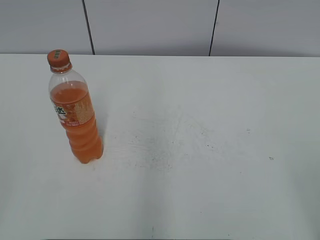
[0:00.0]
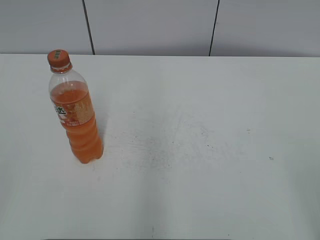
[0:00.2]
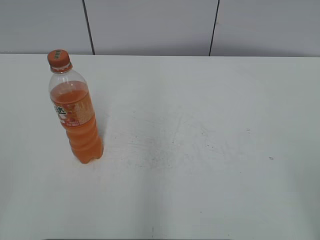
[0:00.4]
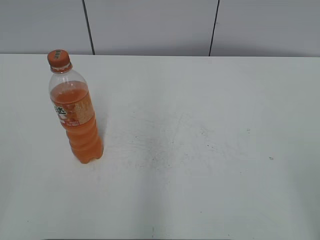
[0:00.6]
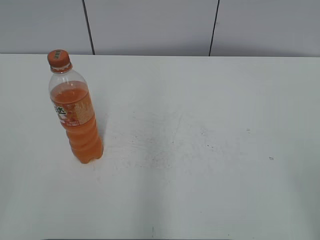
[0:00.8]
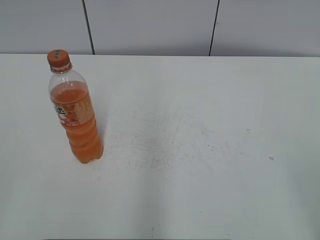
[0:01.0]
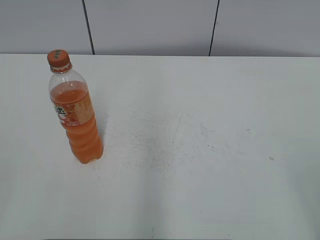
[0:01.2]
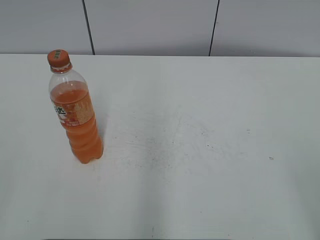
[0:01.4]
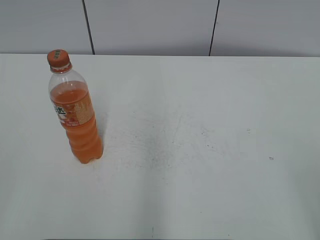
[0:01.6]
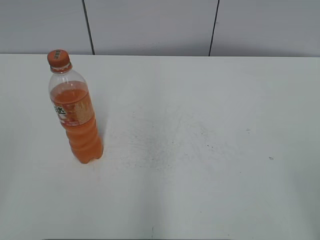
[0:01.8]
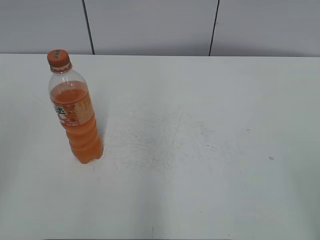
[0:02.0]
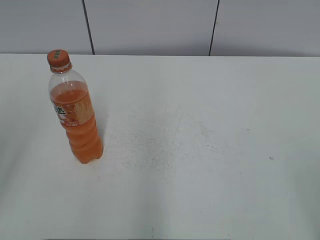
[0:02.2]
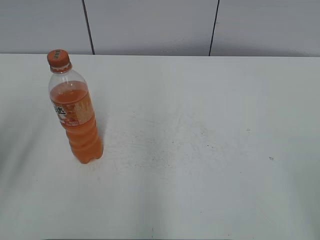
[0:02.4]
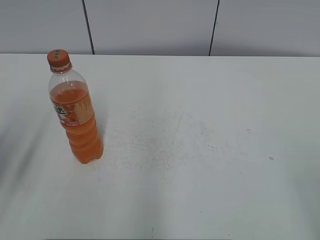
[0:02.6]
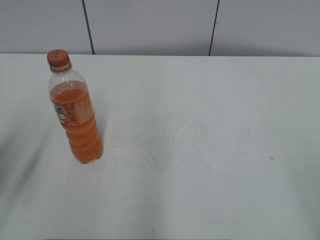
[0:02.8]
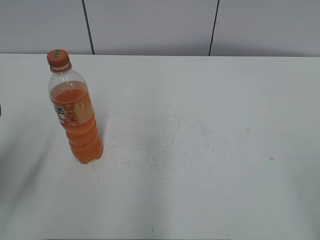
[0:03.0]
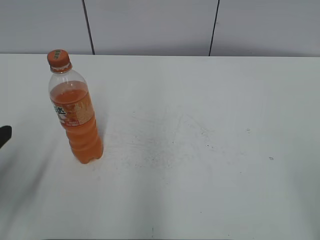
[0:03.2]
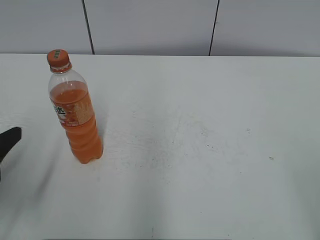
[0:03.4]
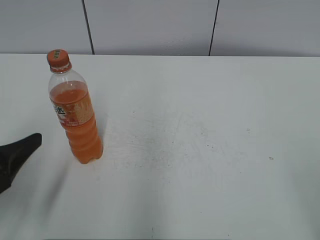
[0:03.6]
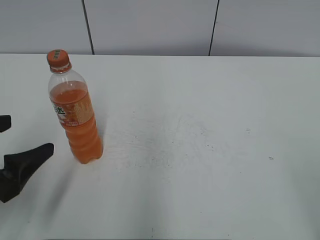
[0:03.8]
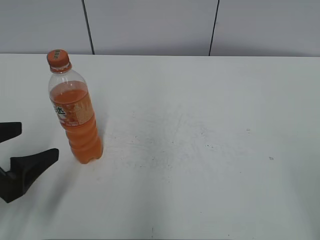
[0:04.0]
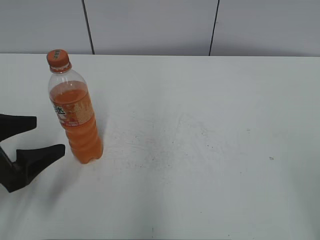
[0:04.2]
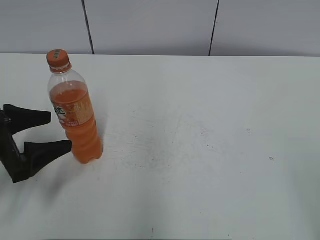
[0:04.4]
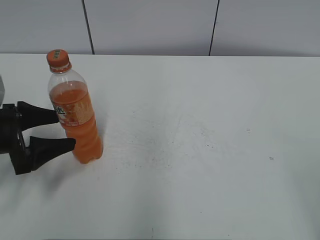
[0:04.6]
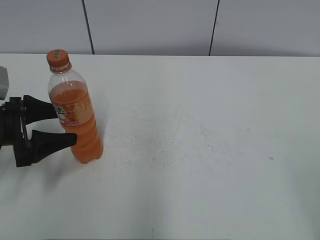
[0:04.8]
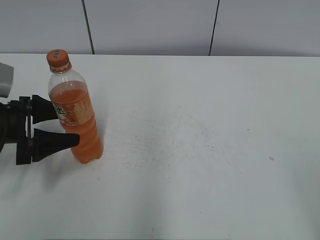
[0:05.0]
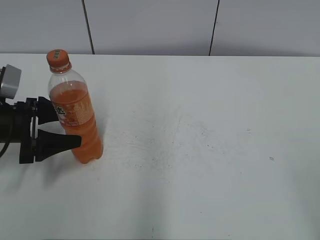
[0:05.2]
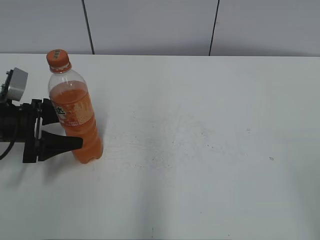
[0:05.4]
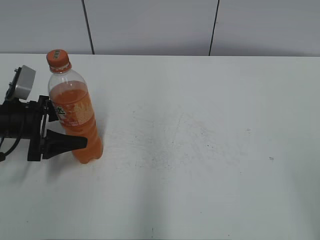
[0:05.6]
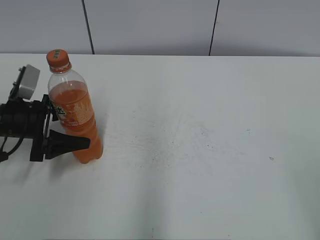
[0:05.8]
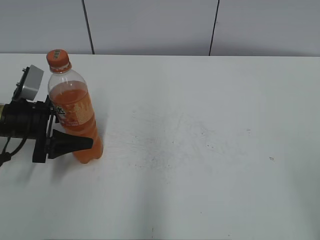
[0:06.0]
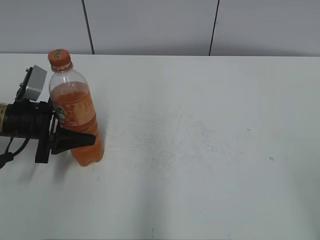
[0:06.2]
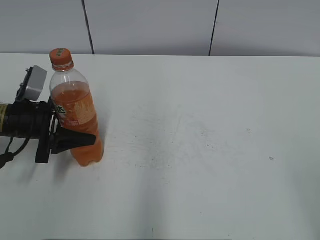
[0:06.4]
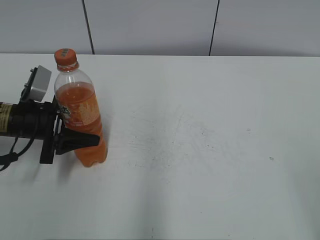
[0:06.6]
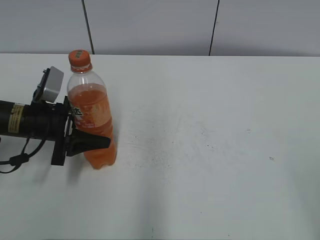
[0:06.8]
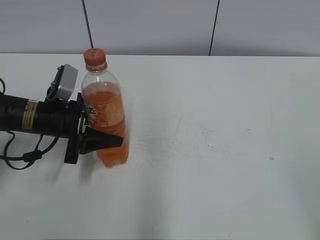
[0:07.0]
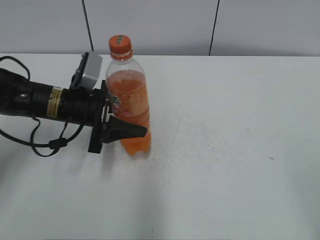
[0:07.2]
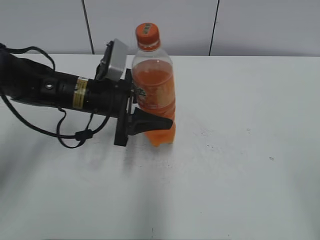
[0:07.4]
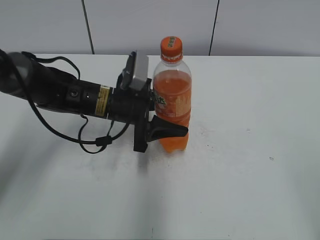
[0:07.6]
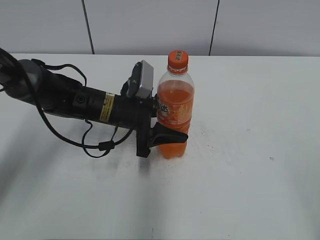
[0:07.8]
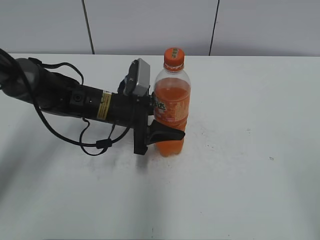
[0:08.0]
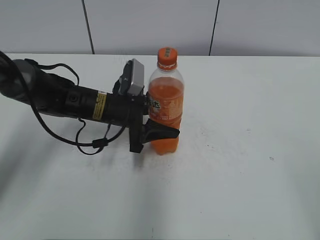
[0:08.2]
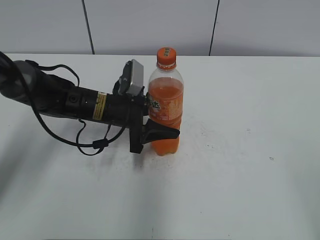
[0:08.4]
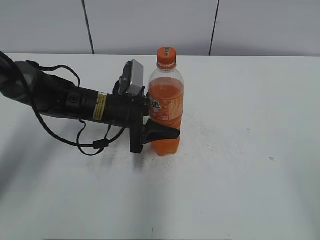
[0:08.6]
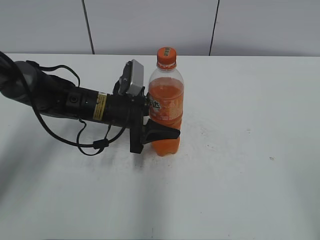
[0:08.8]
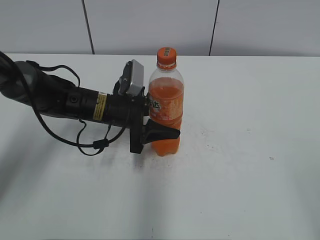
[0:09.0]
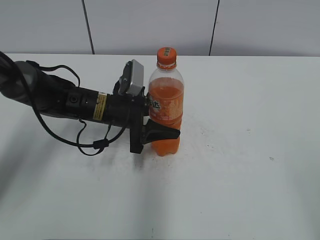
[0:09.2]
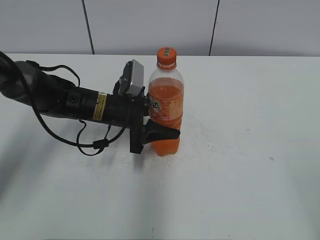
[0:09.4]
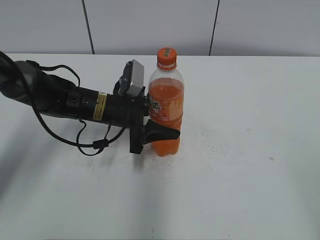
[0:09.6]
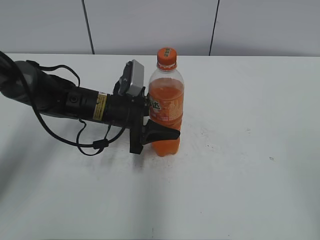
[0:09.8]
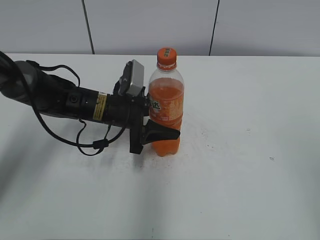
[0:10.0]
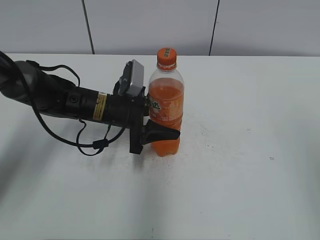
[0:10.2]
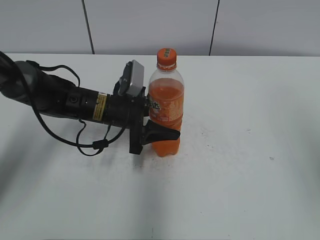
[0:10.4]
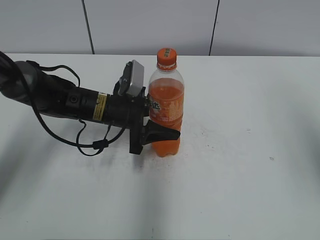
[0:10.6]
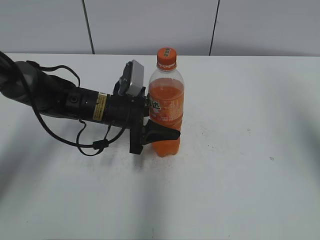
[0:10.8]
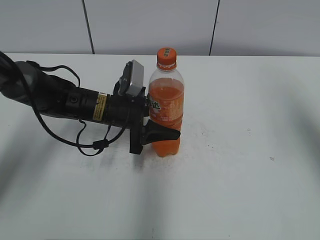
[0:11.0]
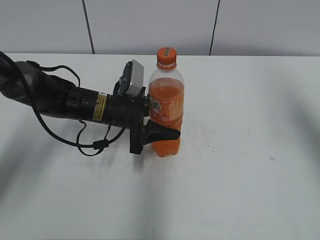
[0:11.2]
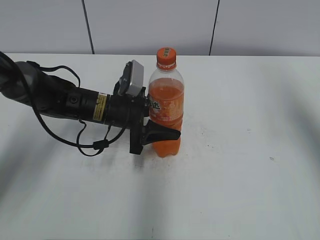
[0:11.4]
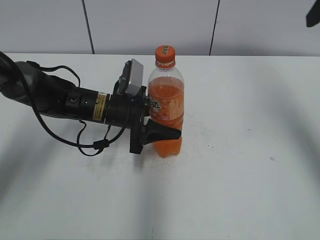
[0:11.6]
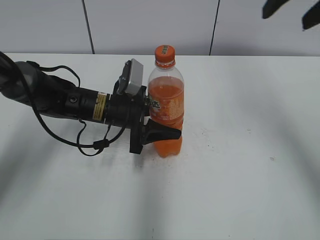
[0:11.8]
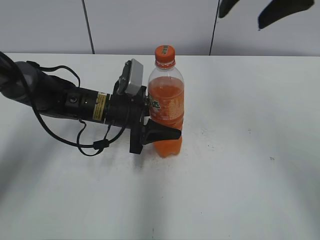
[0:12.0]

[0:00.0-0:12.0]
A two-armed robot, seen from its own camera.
Step, 0:00.0 to 0:06.0: Grab the Mirinda with the left hand.
Step, 0:06.2 to 0:08.2: Move the Mirinda from left to right.
0:01.6 to 0:03.0: The left gripper travels forward and downward by approximately 15 cm.
0:03.0 to 0:04.4: The left gripper heads downward and forward, covering roughly 10 cm, and opens up.
0:04.4 to 0:06.0: The left gripper goes roughly 10 cm forward.
0:06.0 to 0:07.6: The left gripper shifts roughly 15 cm to the right, and closes its fingers.
0:07.6 to 0:09.0: The grippers stay close to where they were, moving slightly.
0:10.4 to 0:12.0: The right gripper heads forward and to the left, covering some 25 cm.

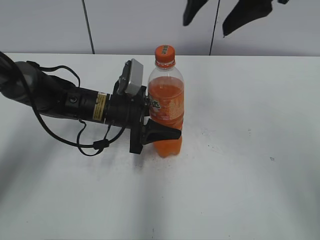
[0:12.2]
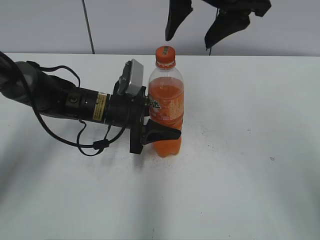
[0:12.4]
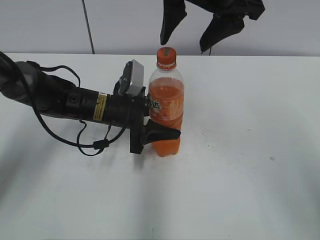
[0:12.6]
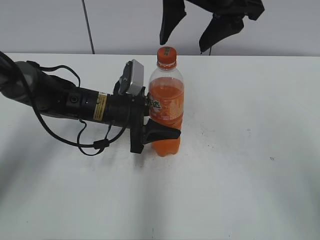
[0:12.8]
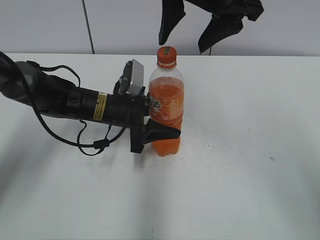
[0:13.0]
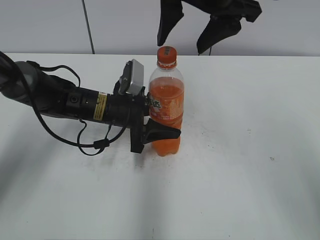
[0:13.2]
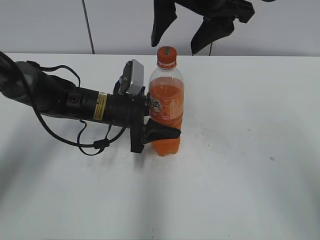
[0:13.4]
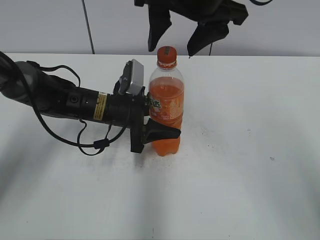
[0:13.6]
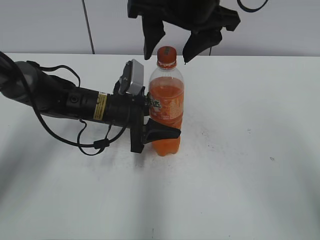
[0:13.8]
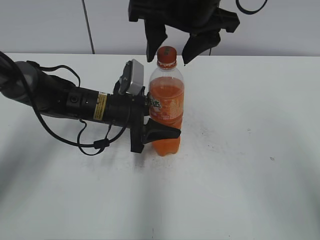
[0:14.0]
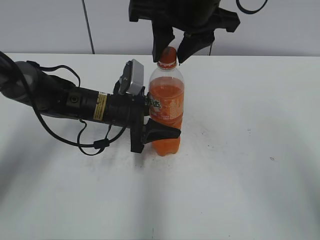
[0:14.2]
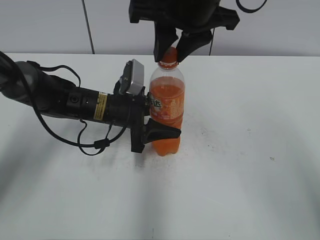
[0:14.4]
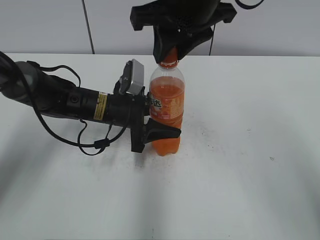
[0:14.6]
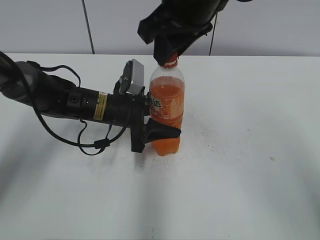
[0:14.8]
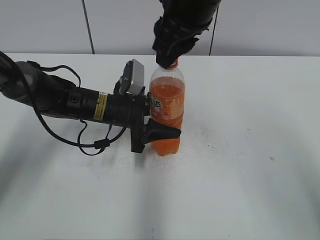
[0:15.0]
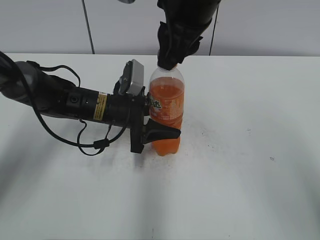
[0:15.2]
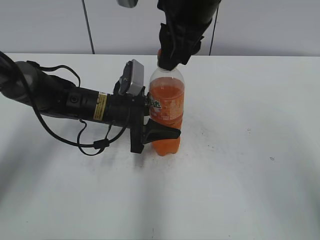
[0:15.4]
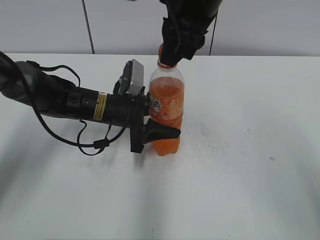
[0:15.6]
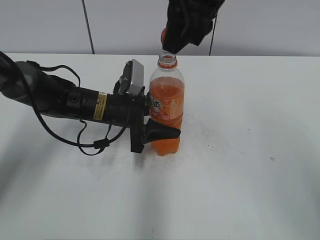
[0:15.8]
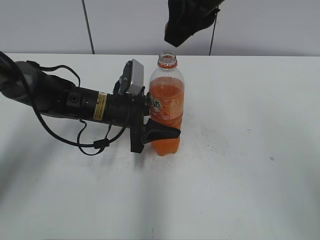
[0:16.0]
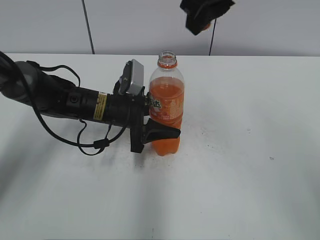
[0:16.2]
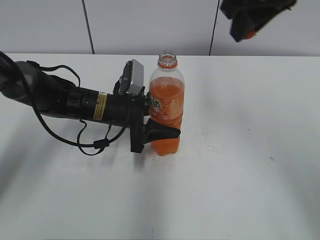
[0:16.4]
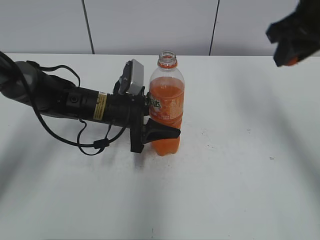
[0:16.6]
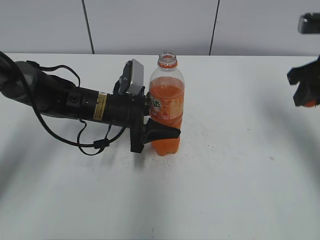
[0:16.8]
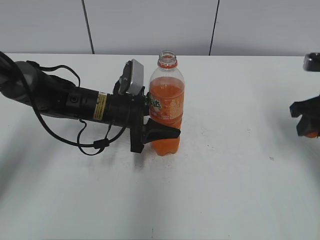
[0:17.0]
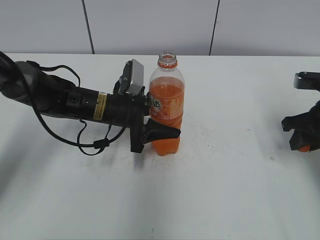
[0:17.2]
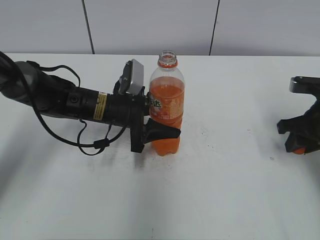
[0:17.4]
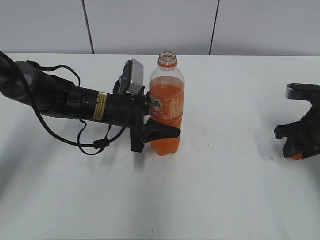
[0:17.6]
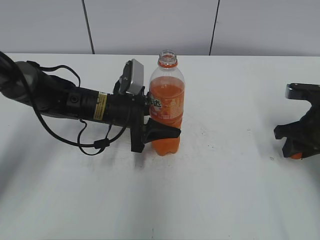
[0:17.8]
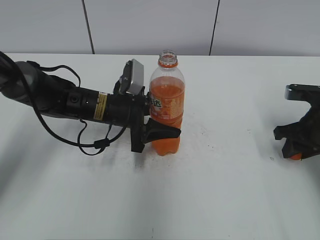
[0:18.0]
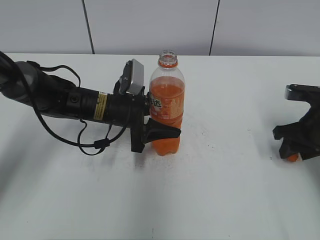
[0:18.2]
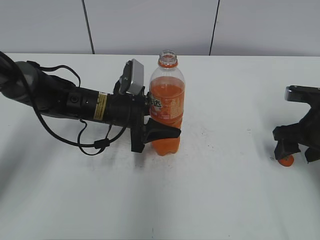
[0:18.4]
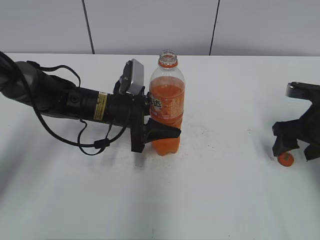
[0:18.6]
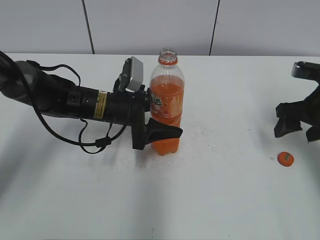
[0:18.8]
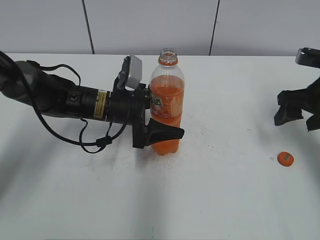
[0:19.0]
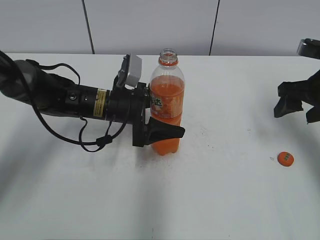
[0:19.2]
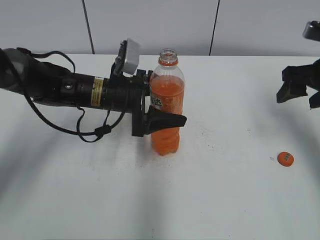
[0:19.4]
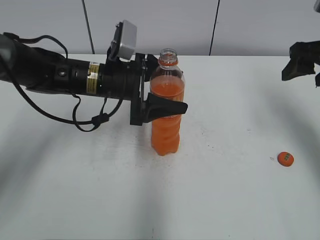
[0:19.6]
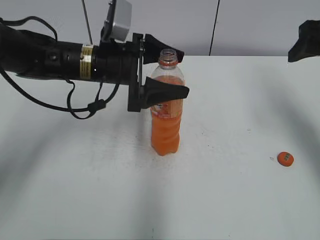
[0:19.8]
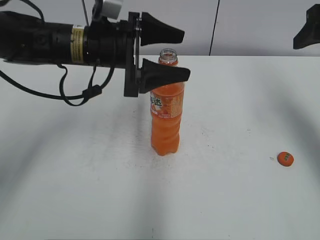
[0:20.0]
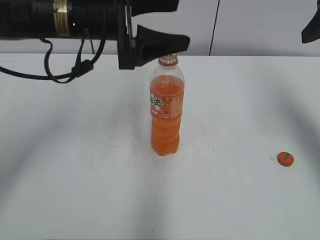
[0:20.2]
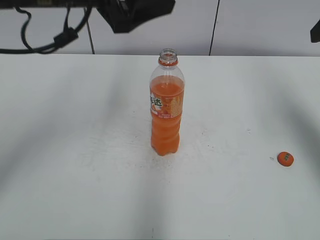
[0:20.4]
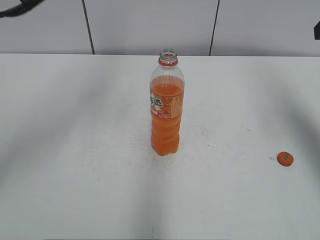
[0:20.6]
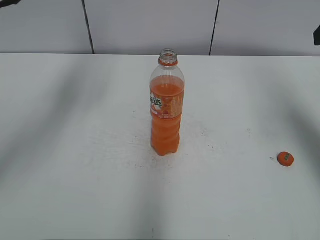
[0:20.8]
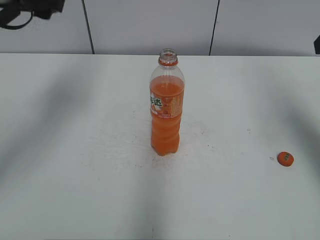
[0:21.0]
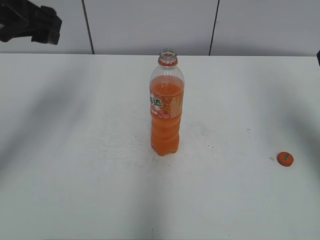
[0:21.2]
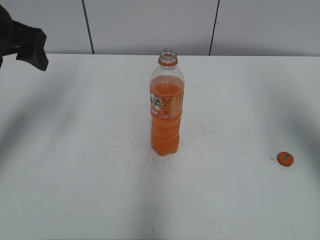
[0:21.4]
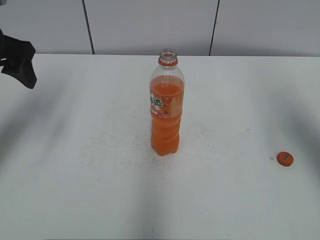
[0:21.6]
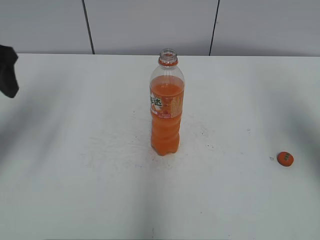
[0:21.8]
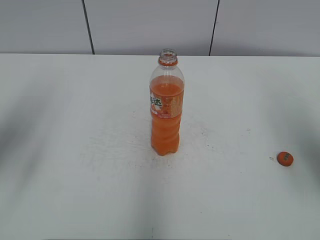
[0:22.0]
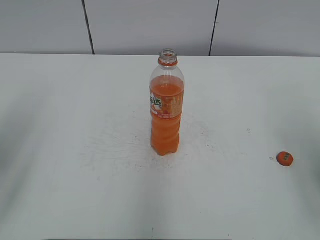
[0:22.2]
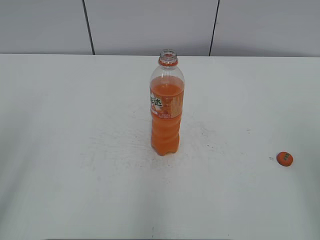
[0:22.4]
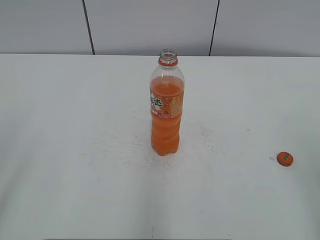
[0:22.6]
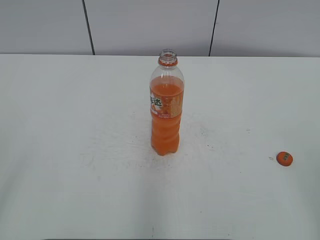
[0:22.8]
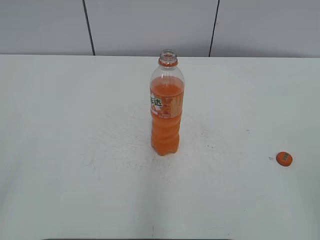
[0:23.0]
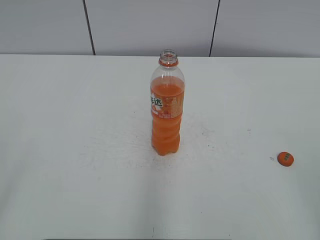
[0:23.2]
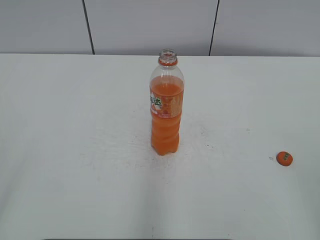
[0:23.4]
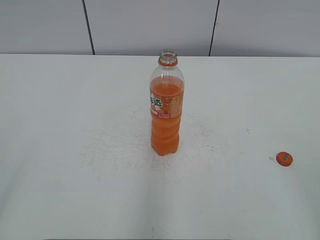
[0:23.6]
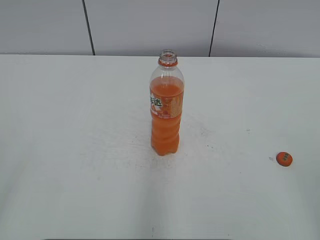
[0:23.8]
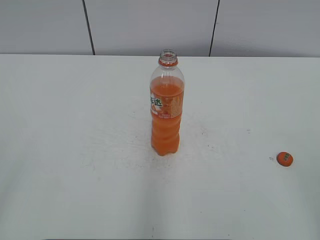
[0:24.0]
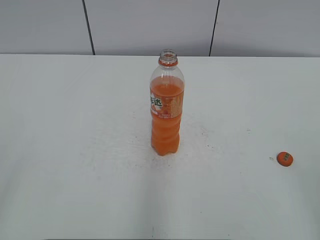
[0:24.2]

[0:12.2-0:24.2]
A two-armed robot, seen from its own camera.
Step, 0:15.8 to 0:18.2: Place the bottle cap on the right.
0:12.2 to 0:13.8: The right gripper moves to the left, some 5 cm.
0:13.8 to 0:15.2: The right gripper closes.
0:15.2 to 0:16.6: The right gripper is displaced to the right by roughly 15 cm.
0:16.6 to 0:18.2: The right gripper moves downward and to the right, about 20 cm.
0:18.2 to 0:19.8: The right gripper shifts roughly 15 cm upward, and opens its fingers. The left gripper goes some 10 cm upward, and opens.
0:19.8 to 0:21.2: The left gripper moves to the left and upward, some 20 cm. Meanwhile the right gripper shifts about 10 cm upward and backward.
0:21.2 to 0:22.6: The grippers both shift backward by roughly 25 cm.
